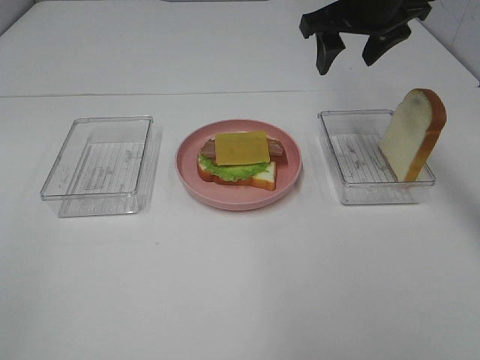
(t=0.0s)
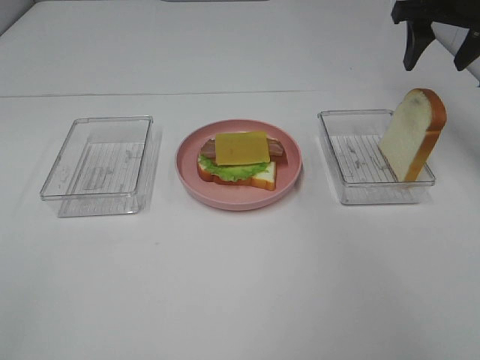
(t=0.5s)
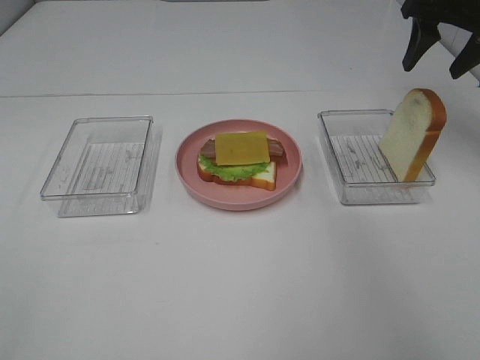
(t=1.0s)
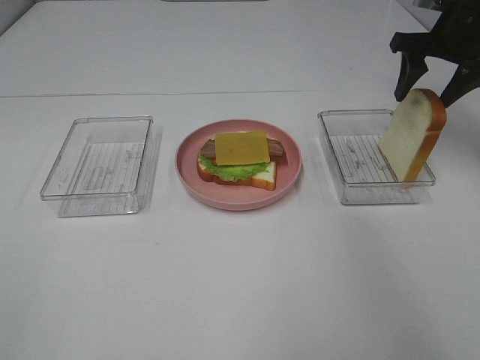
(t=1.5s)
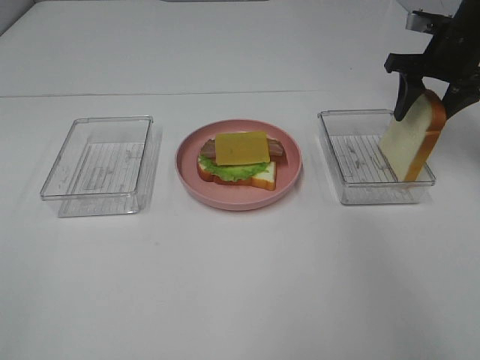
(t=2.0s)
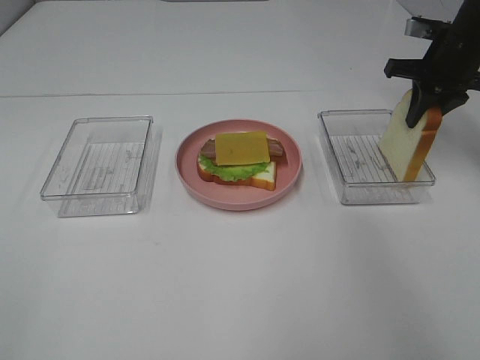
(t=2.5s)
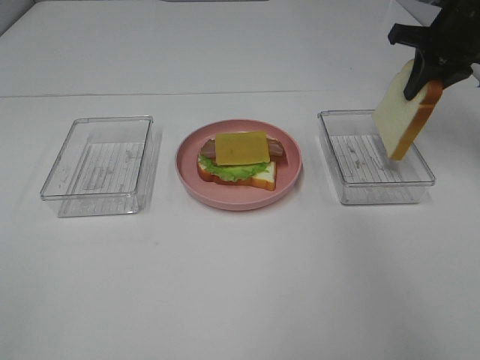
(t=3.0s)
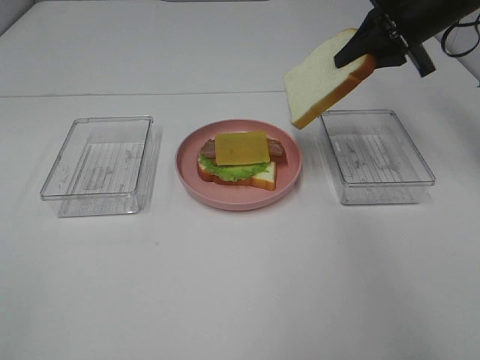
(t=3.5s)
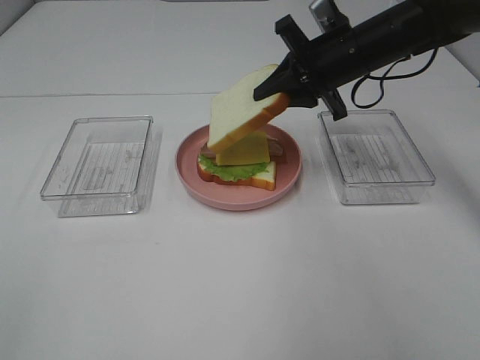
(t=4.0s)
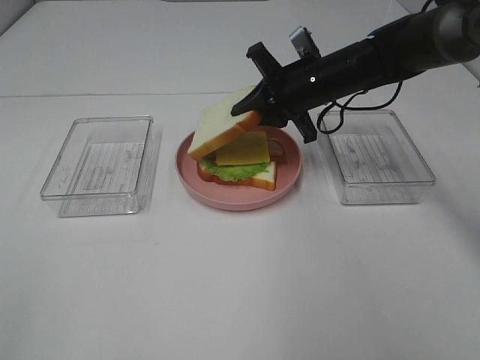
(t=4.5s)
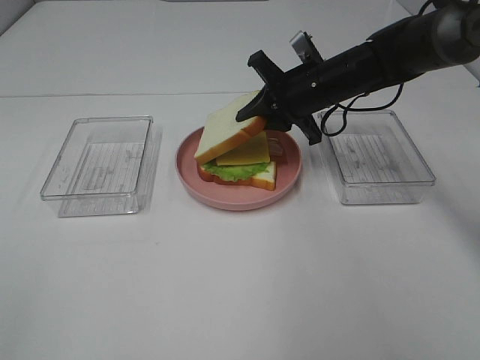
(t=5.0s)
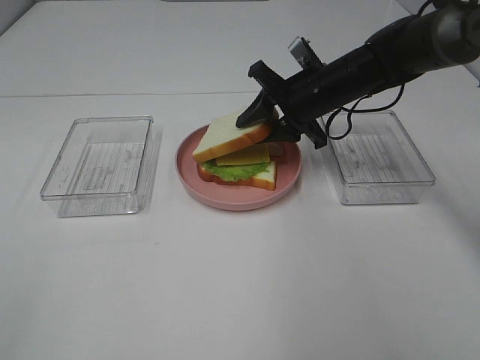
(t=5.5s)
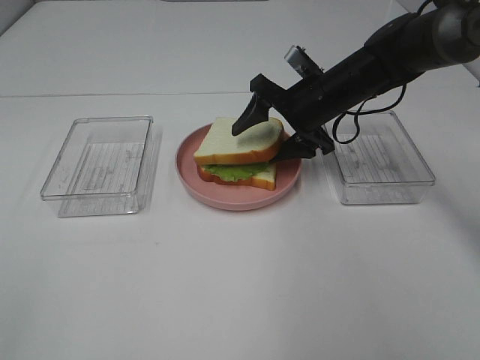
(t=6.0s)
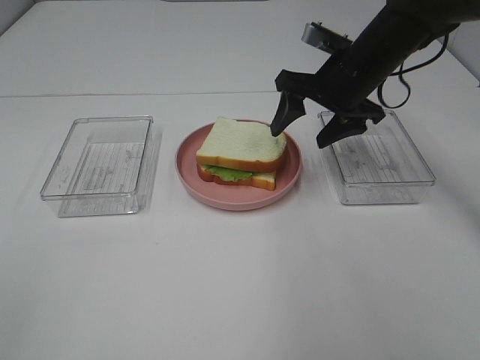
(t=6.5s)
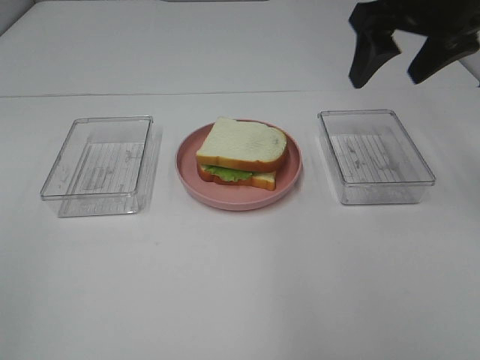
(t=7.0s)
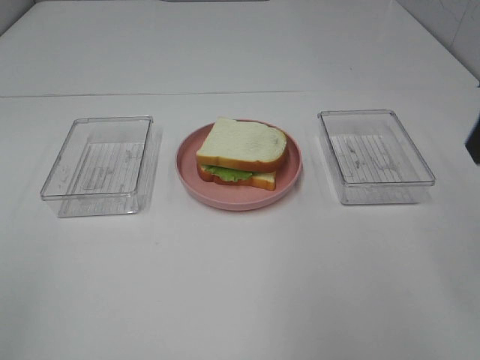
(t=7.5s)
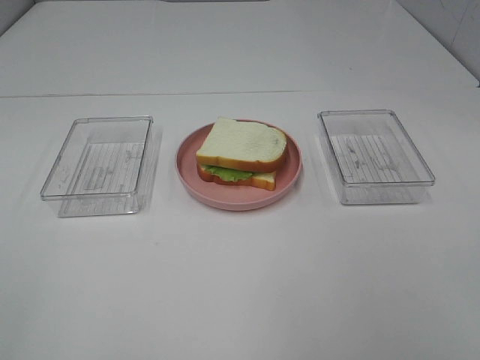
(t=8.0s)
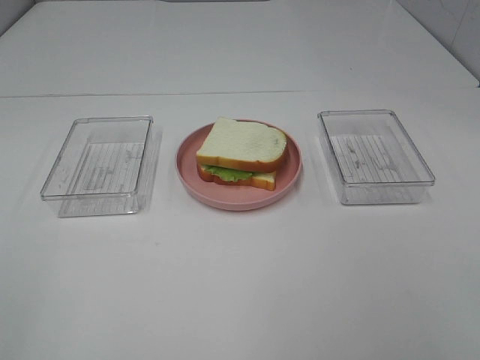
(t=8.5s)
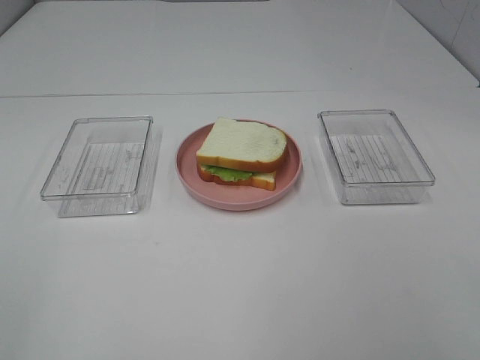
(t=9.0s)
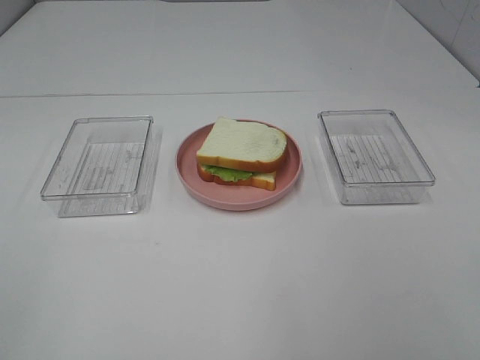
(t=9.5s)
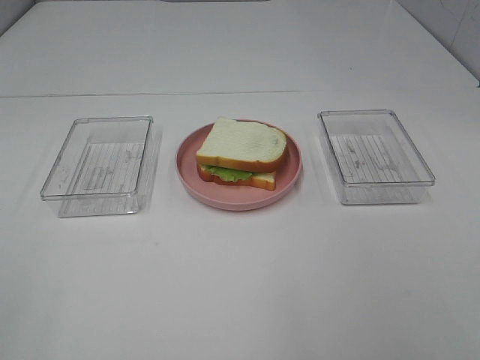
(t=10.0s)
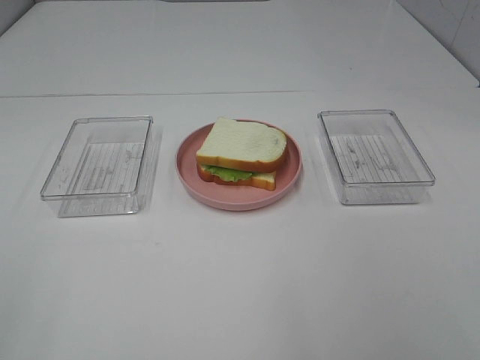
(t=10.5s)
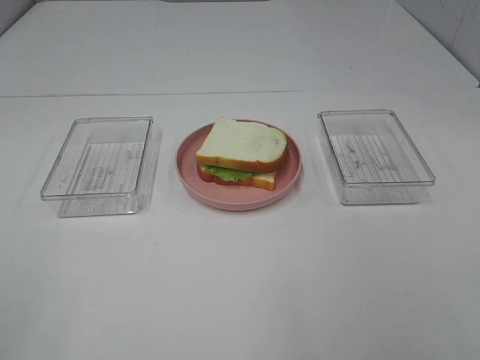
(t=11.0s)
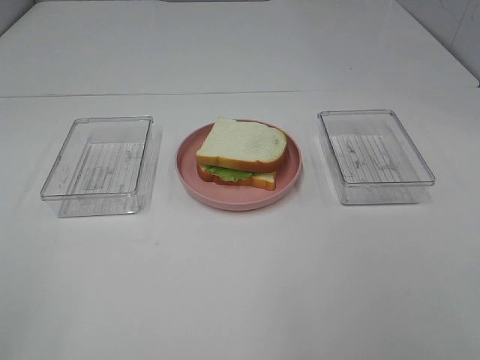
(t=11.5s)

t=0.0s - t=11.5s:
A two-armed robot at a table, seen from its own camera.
Task of the whole recording: Make sandwiches.
Step, t=0.0s - t=2.0s: Right hand:grab the bread slice.
Step, t=2.5s - t=6.5s: Right hand:place the bread slice on the cheese slice.
t=0.0s - t=2.0s: The right gripper travels to the right and downward by about 15 cm.
t=2.0s - t=4.0s: The right gripper moves to the left, some 15 cm, and closes up.
t=4.0s - t=6.0s: The right gripper shifts roughly 5 cm downward, and opens its fingers.
t=6.0s - t=7.5s: The right gripper shifts some 35 cm backward, upward and to the right.

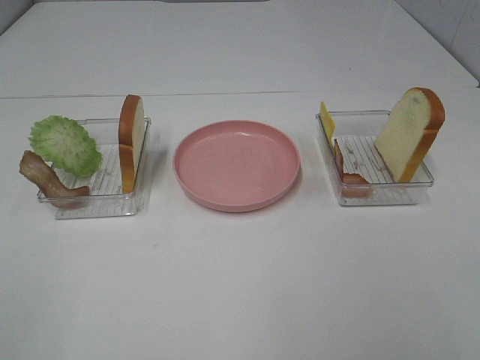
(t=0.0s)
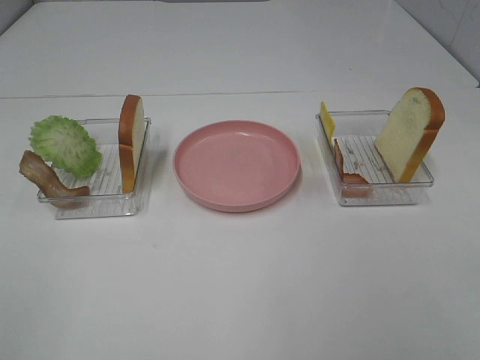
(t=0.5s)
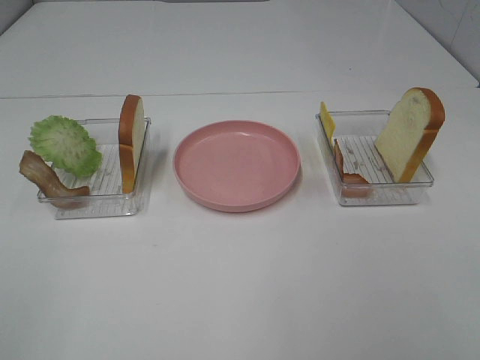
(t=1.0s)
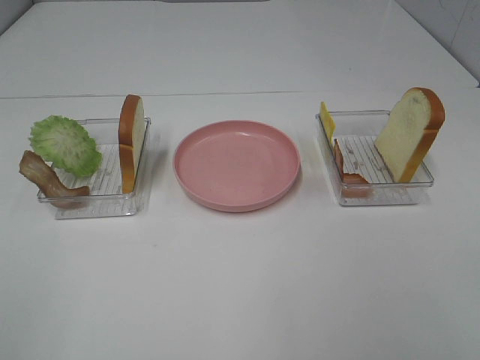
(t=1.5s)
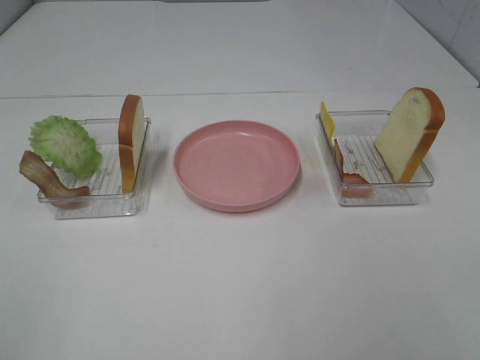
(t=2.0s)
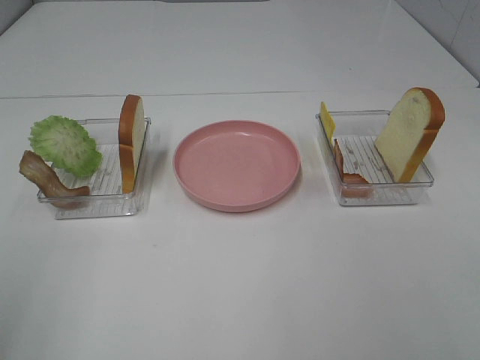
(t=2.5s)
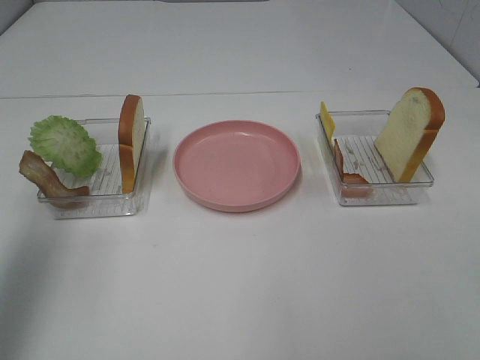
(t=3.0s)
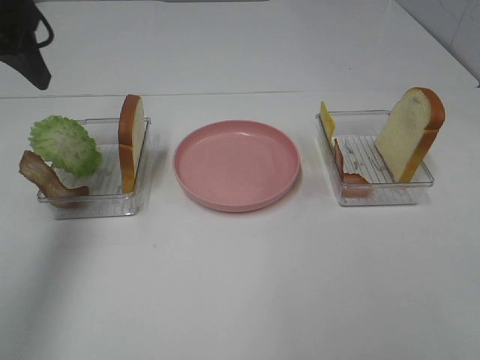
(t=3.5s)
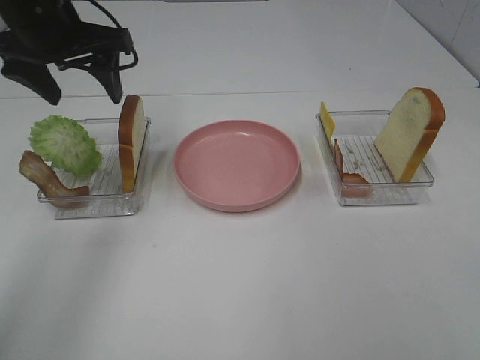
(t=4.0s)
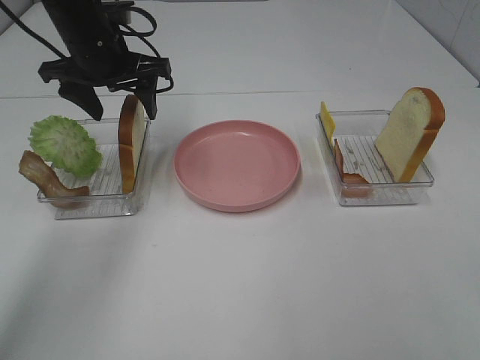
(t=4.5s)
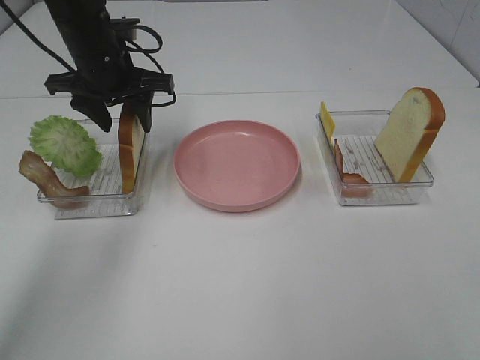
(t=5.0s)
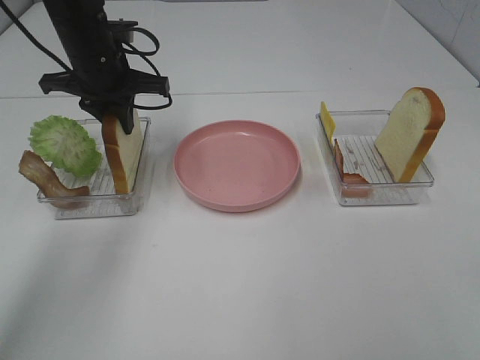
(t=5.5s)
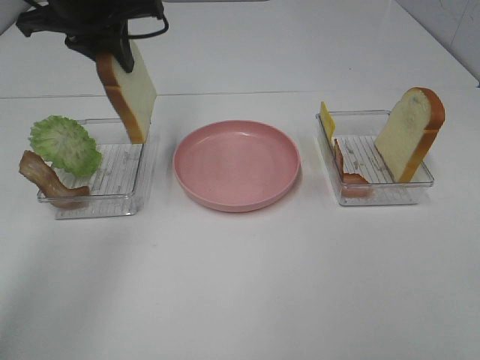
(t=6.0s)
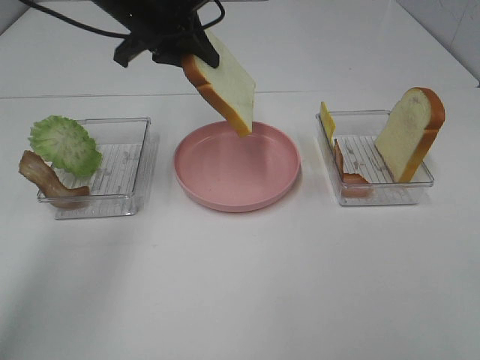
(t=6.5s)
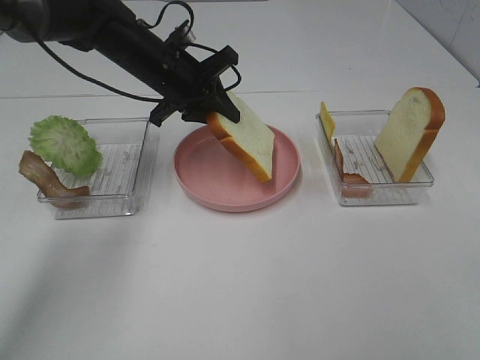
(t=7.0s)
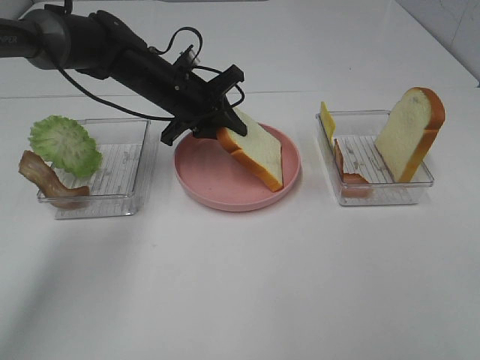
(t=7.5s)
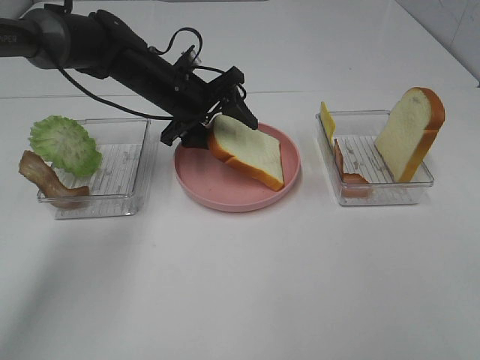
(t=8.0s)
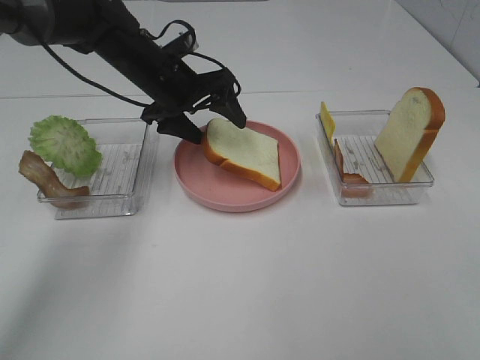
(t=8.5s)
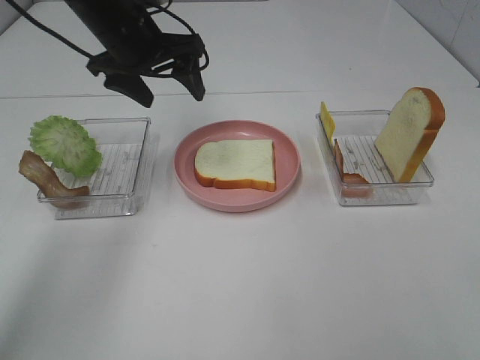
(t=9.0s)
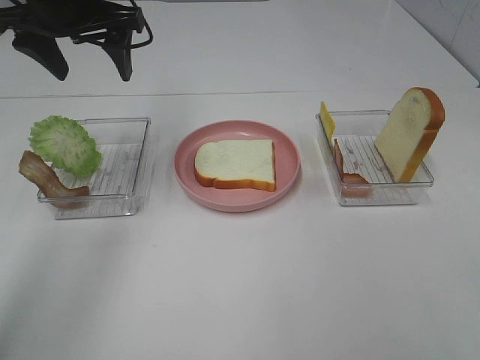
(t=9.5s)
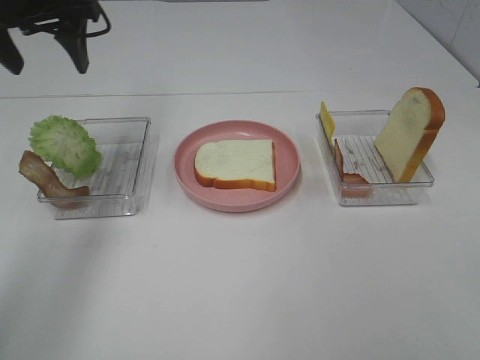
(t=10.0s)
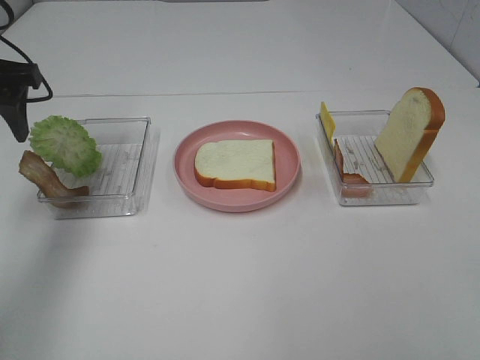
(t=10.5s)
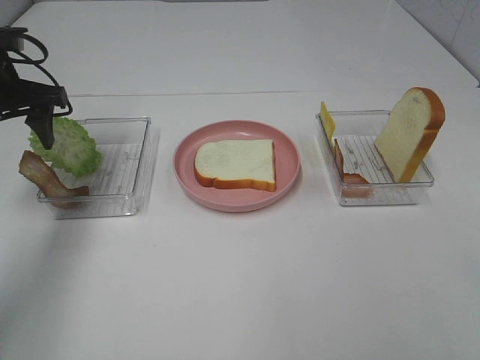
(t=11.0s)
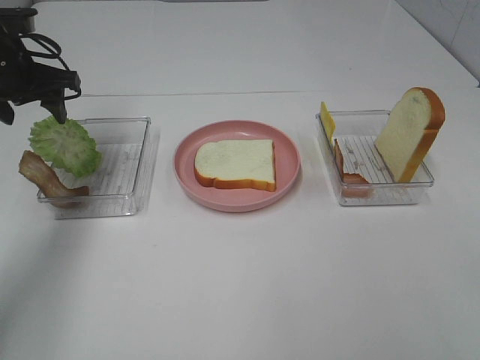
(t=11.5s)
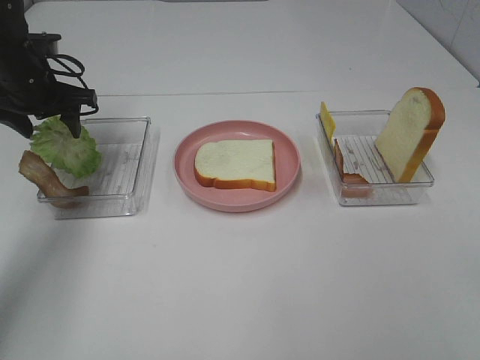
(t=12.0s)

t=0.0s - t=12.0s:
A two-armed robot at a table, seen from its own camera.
Task of the whole recording: Make sandwiches.
Step, t=0.0s - t=5.0s: Left hand:grab the bread slice.
Step, t=5.5s - t=8.5s: Left hand:place the bread slice on the plate.
t=0.0s - t=2.0s: Both grippers stay put.
t=2.0s - t=4.0s: The left gripper goes roughly 40 cm forward.
t=4.0s - t=6.0s: The left gripper travels downward and back again, roughly 5 cm each way, and closes.
t=6.0s - t=8.0s: The left gripper heads downward and to the right, covering some 20 cm, and opens up.
t=8.0s - t=10.0s: The left gripper shifts approximately 20 cm upward and to the left.
t=10.0s - t=12.0s: The left gripper shifts about 15 cm downward and forward.

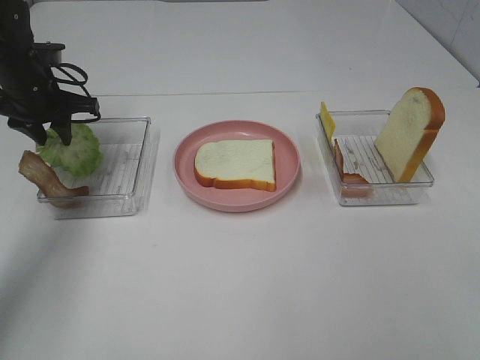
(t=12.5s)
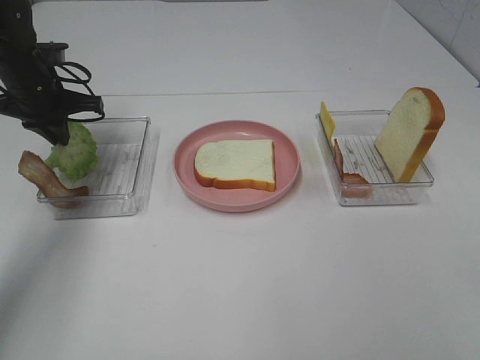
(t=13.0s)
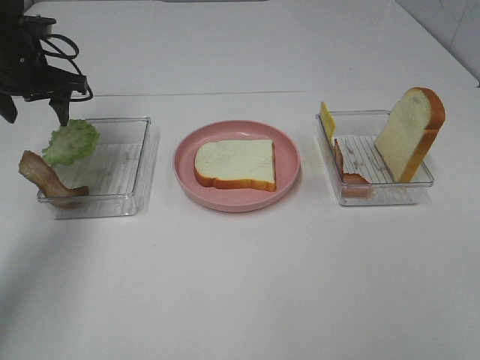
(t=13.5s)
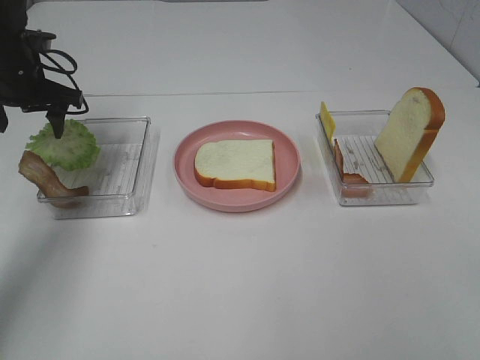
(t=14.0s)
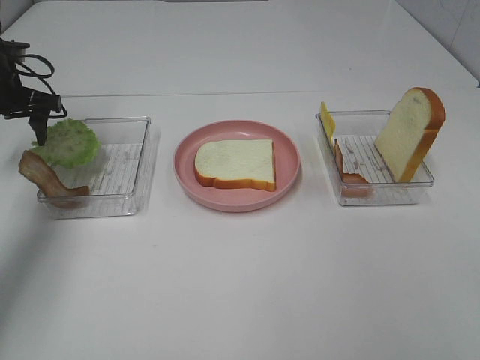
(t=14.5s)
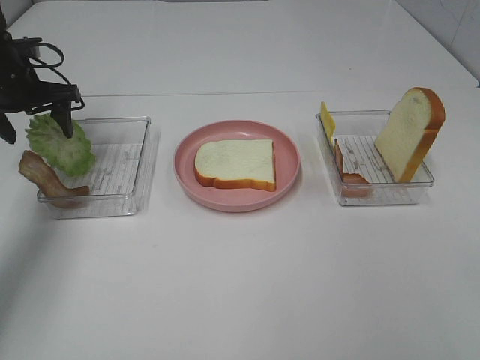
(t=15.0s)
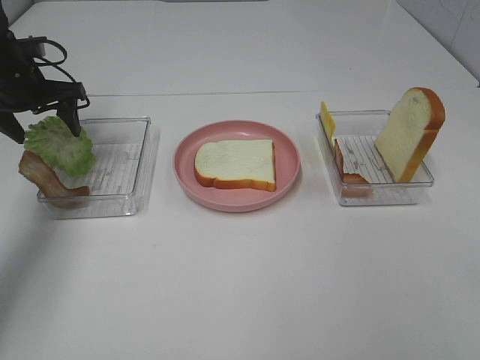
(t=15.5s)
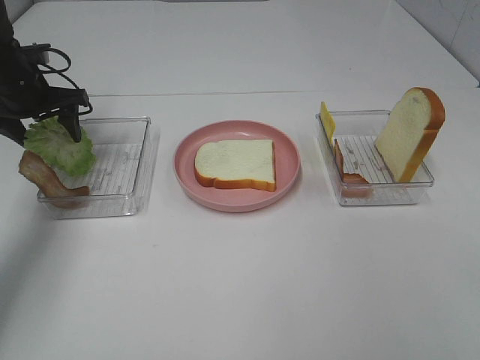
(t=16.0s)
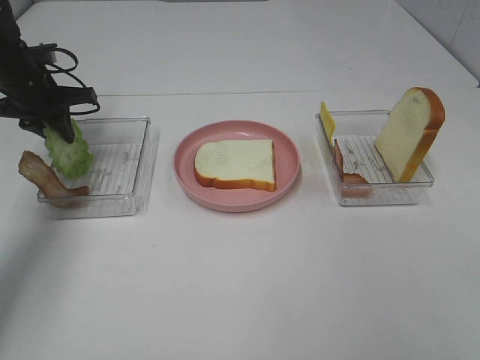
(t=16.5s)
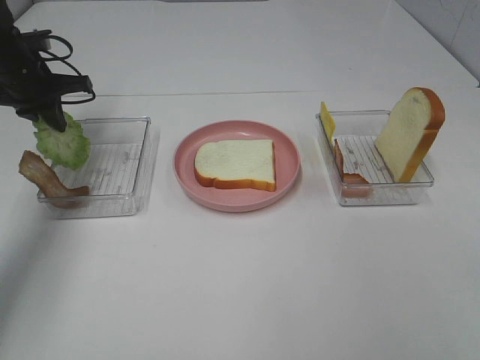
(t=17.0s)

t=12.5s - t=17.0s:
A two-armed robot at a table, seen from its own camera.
Task of the whole recording: Make sandwiches.
Step, t=12.5s - t=16.5s: Left hand:grab the lettuce slice.
t=12.5s - t=14.5s: The left gripper changes place by approximately 5 cm, and opens.
t=14.5s - t=17.0s: The left gripper closes its fingers.
